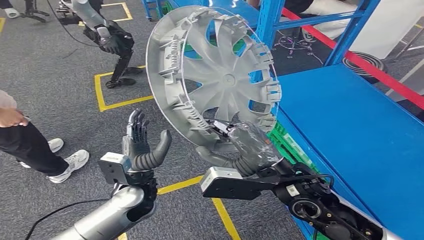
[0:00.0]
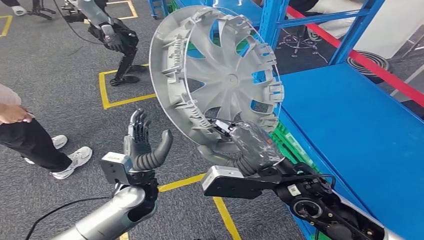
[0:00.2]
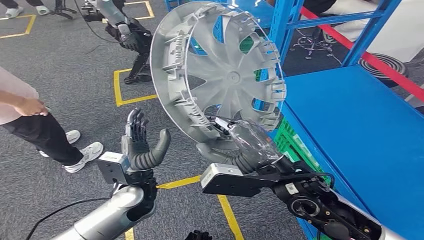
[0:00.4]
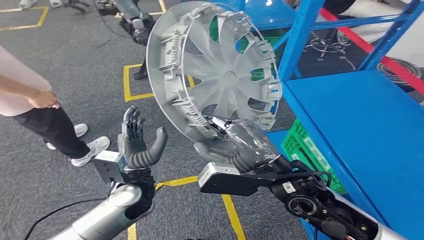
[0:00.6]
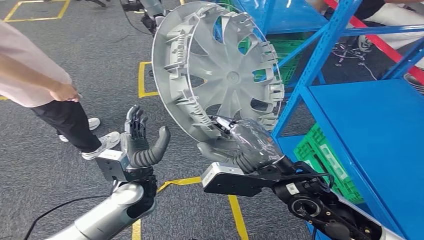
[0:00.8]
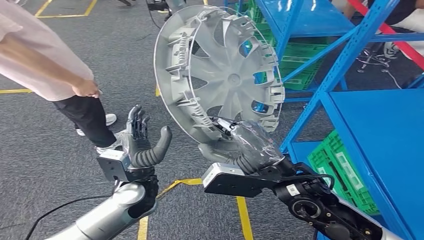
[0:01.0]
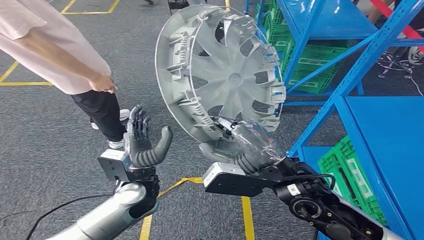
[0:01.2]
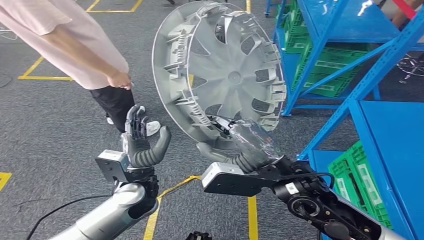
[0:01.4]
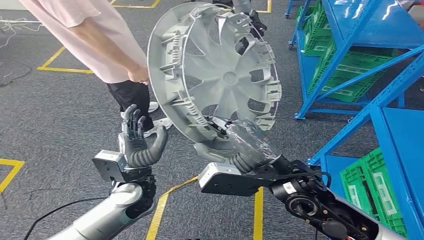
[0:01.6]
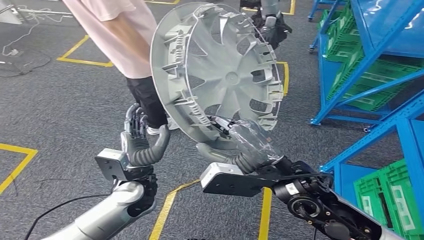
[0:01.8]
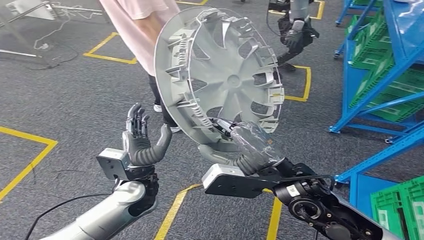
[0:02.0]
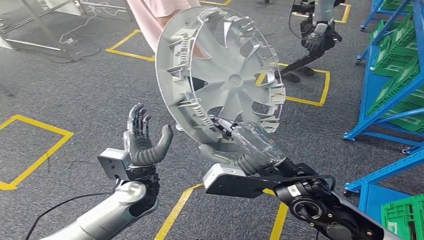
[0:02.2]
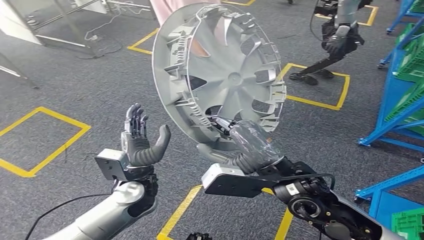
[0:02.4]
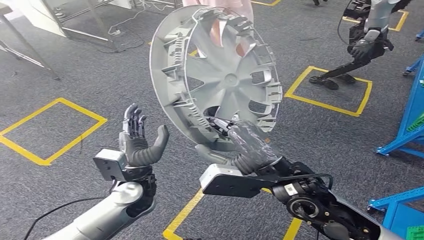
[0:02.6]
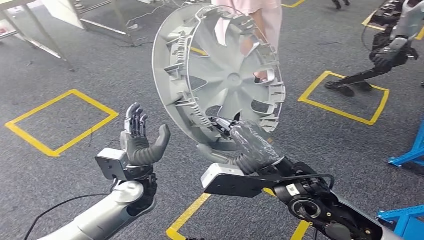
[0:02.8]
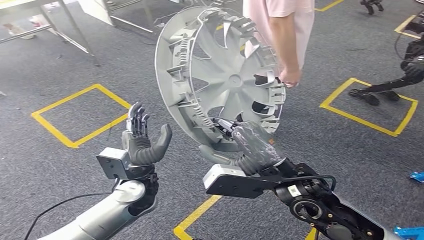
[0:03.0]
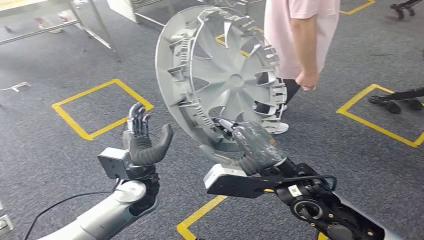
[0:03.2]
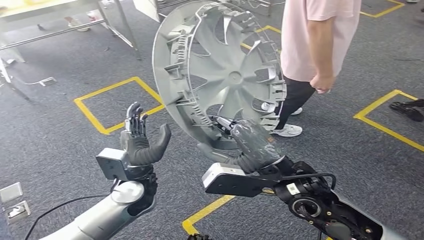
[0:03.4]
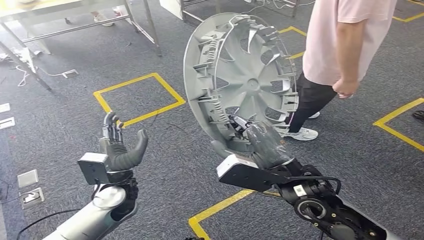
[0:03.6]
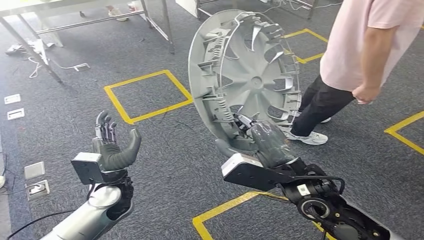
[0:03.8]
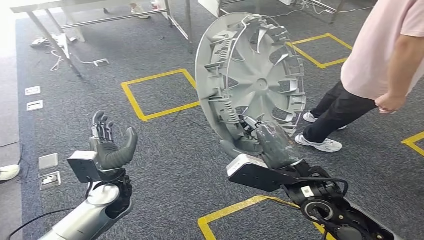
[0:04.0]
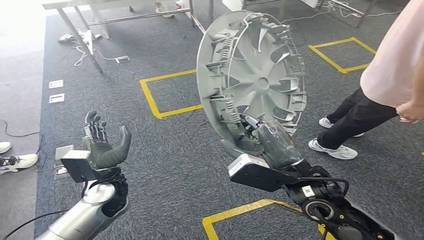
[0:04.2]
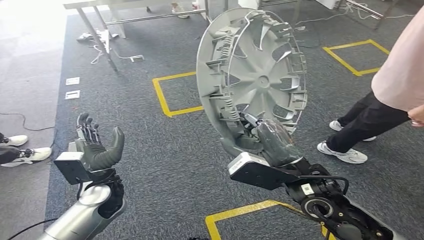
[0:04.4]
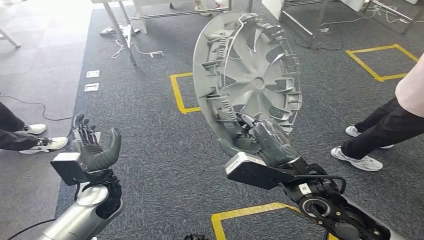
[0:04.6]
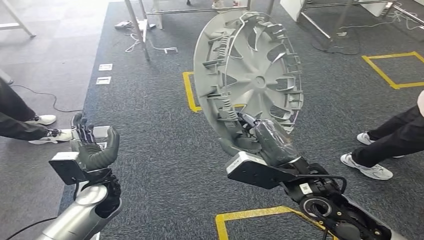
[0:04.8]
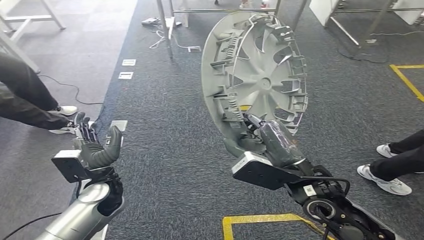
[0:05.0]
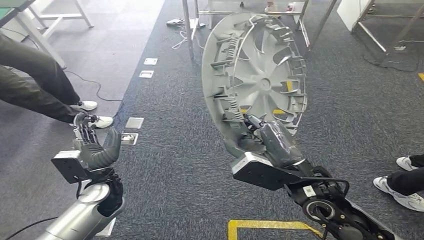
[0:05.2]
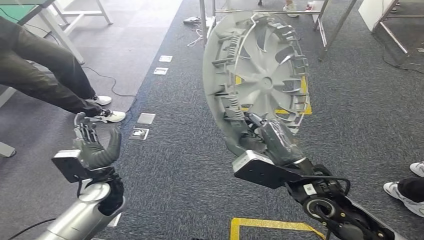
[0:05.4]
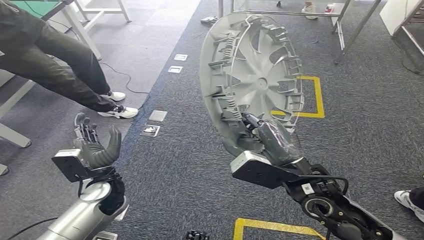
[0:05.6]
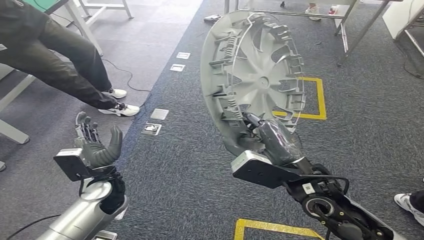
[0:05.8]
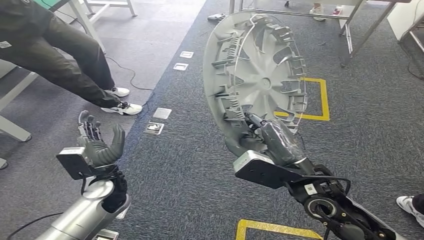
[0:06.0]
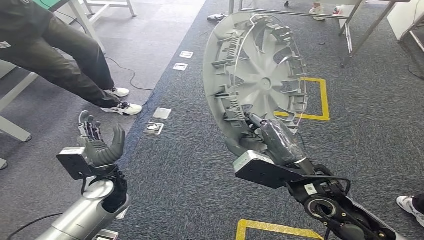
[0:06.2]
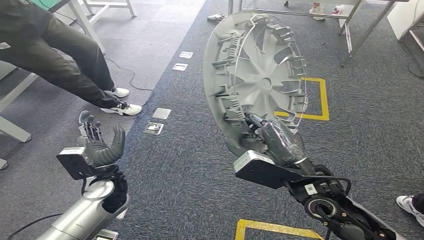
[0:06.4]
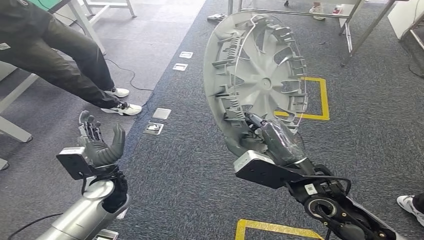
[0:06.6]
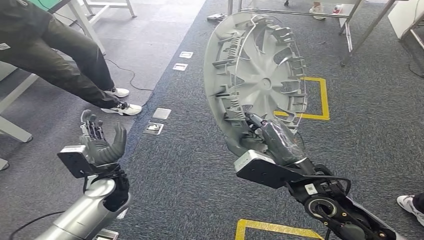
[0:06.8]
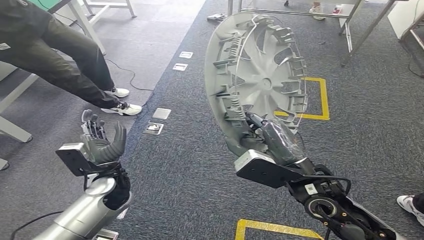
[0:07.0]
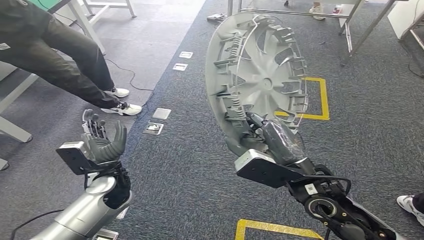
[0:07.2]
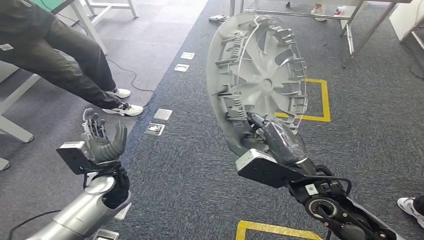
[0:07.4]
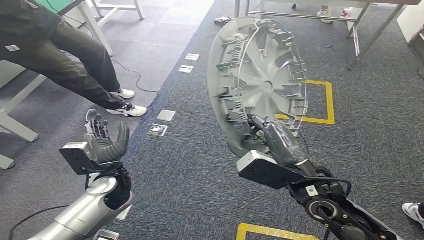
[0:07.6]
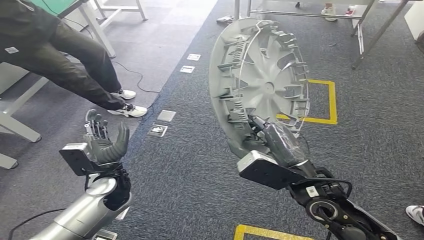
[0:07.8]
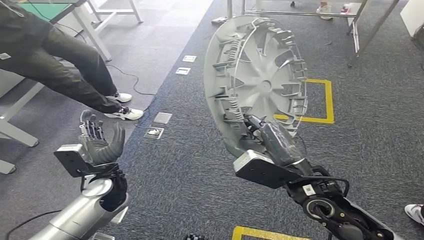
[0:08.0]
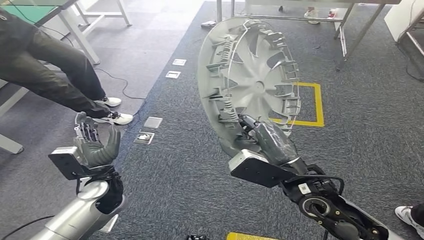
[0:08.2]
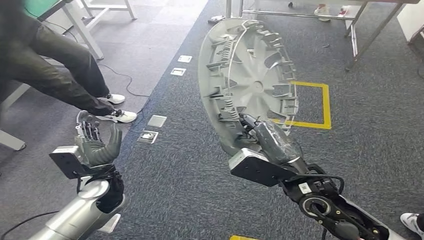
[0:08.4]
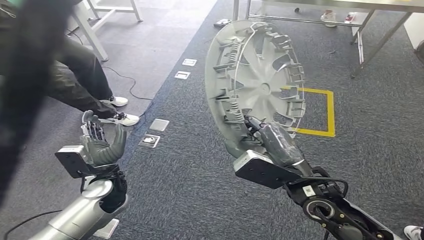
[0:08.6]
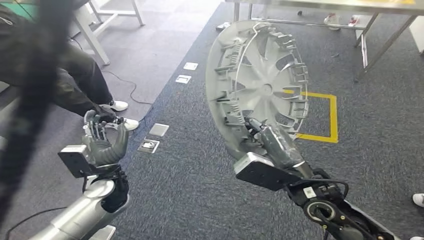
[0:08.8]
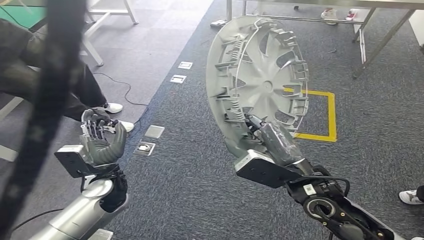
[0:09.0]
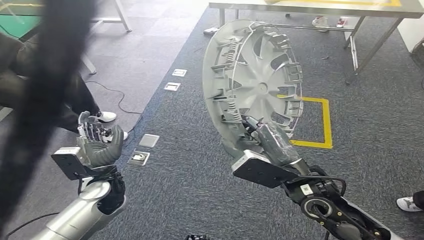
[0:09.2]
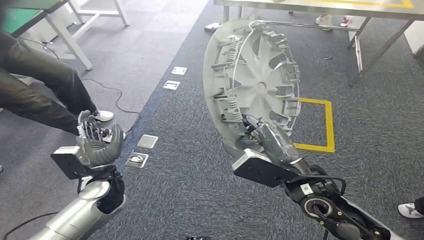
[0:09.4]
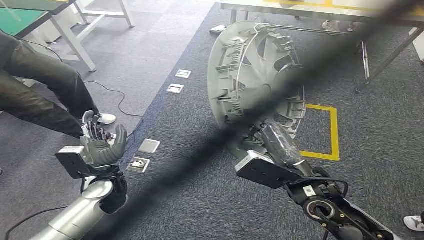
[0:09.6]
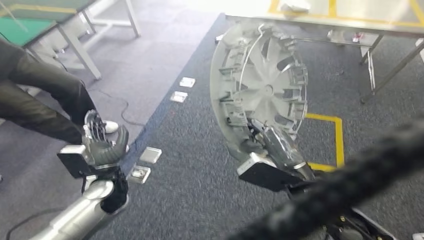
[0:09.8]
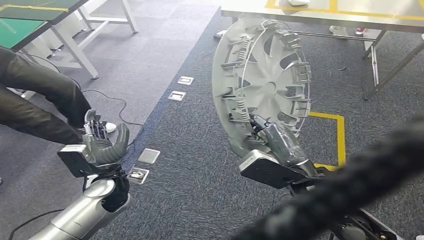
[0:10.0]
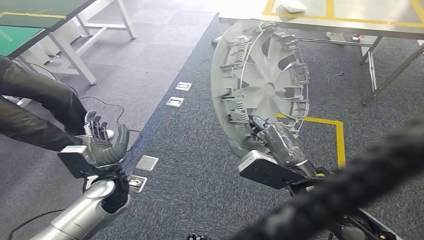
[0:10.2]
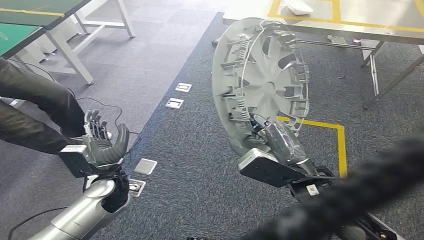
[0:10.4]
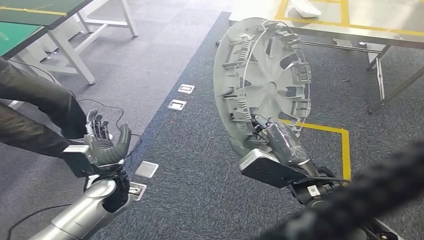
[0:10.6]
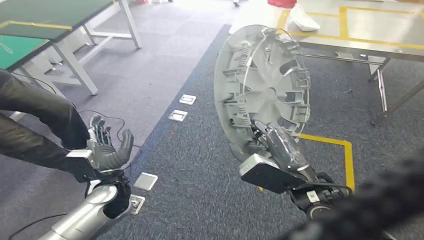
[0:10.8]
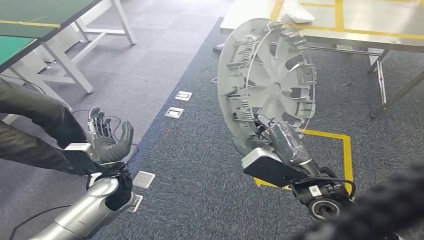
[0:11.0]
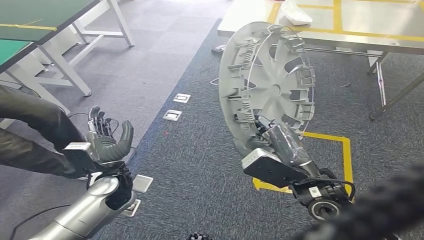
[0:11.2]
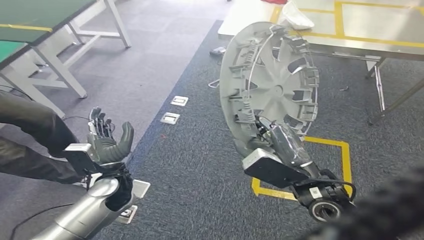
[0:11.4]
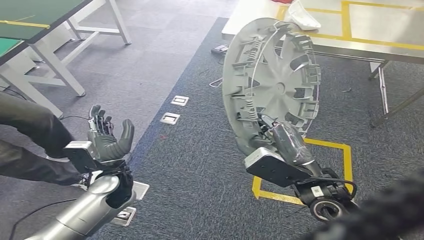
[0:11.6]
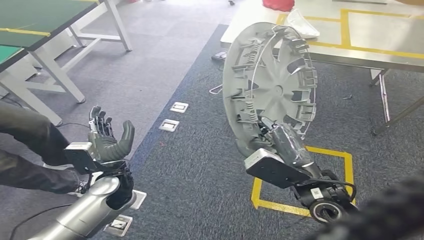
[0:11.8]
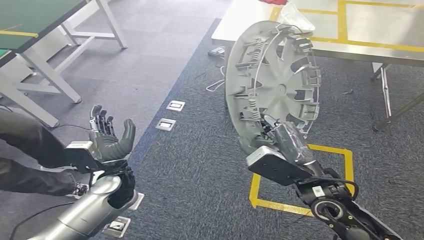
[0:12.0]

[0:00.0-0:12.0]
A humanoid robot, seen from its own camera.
0:06.0 to 0:07.6: The hands stay close to where they were, moving slightly.

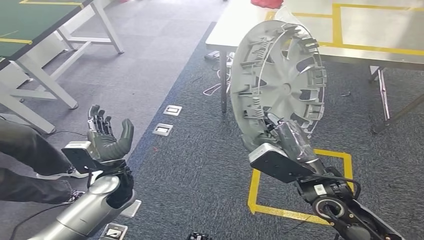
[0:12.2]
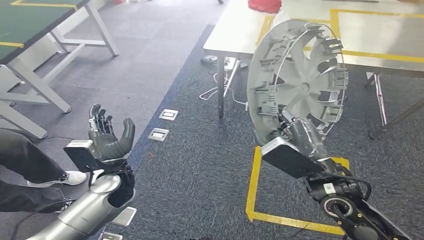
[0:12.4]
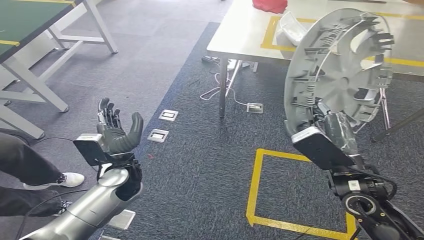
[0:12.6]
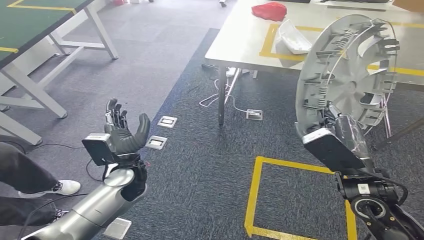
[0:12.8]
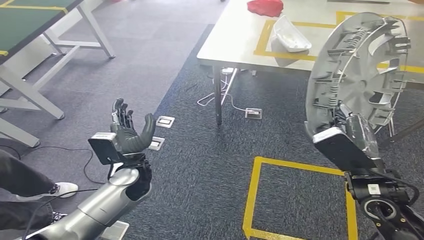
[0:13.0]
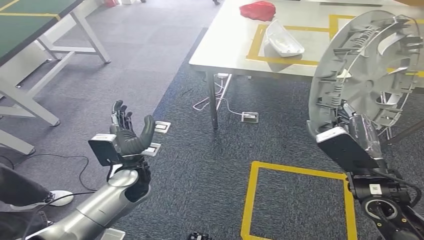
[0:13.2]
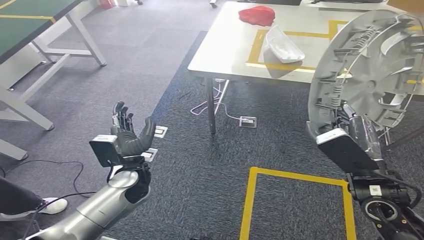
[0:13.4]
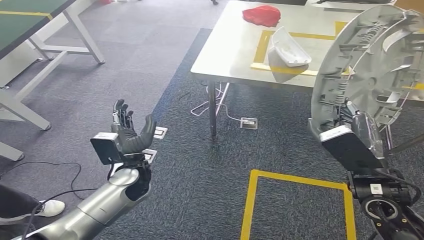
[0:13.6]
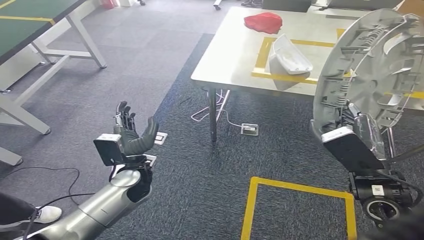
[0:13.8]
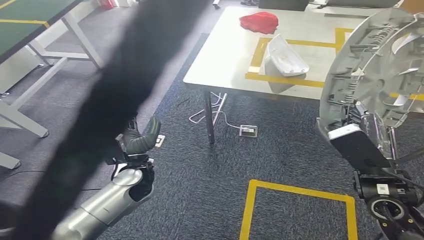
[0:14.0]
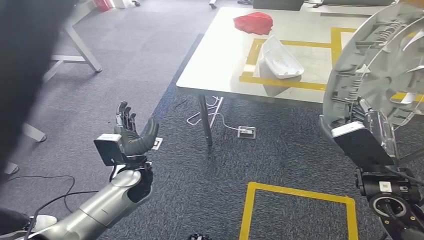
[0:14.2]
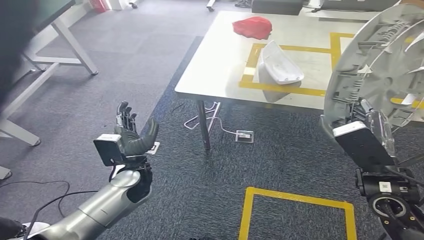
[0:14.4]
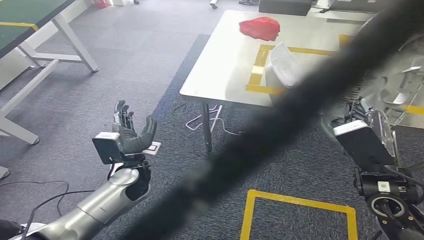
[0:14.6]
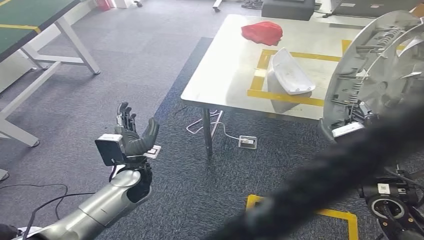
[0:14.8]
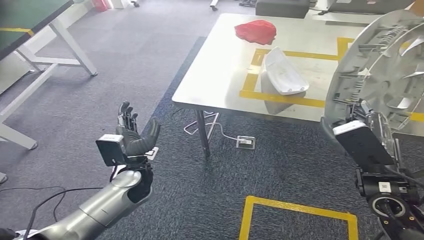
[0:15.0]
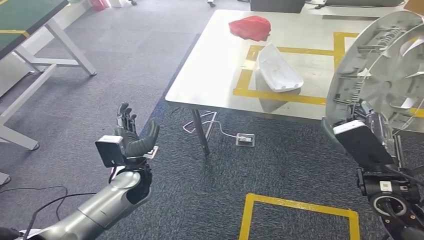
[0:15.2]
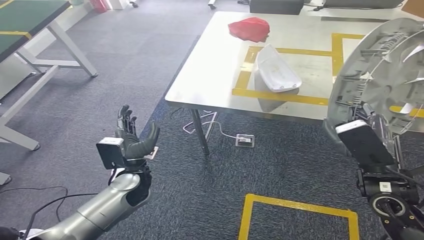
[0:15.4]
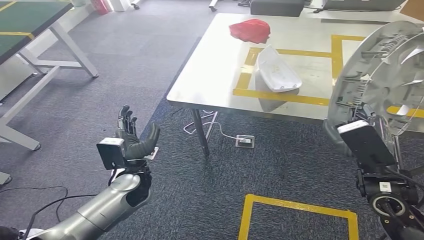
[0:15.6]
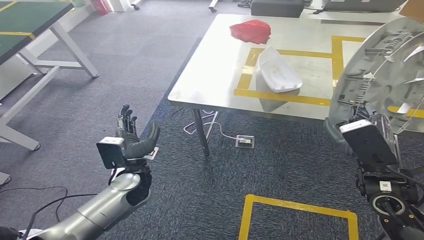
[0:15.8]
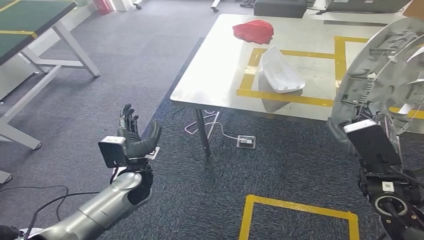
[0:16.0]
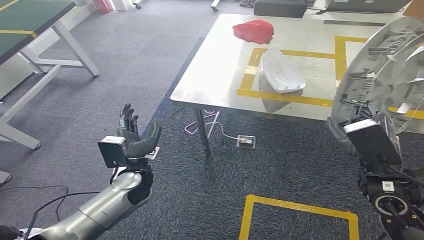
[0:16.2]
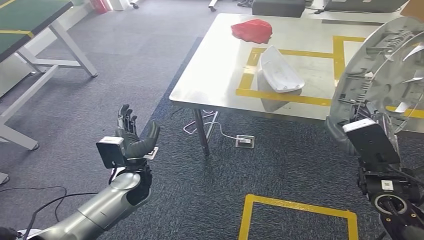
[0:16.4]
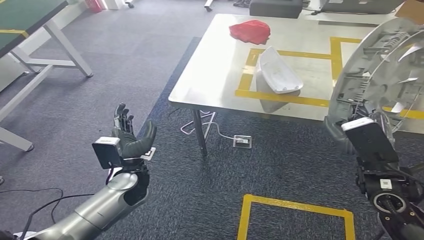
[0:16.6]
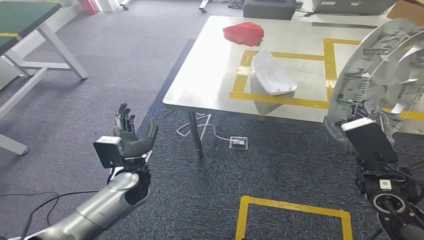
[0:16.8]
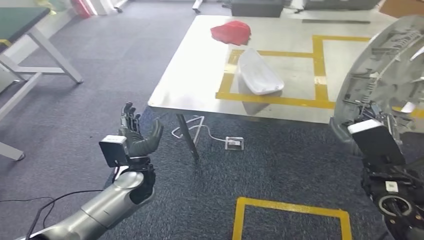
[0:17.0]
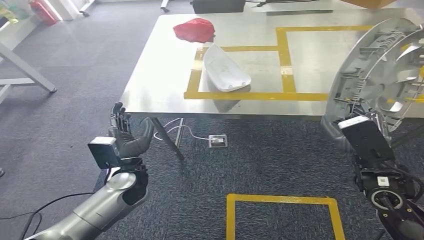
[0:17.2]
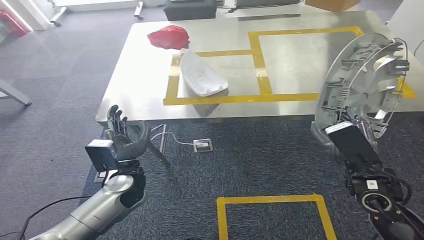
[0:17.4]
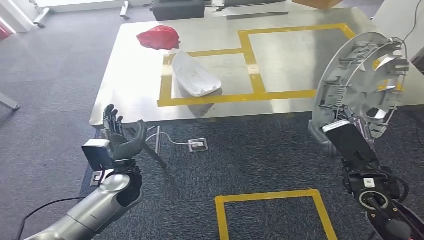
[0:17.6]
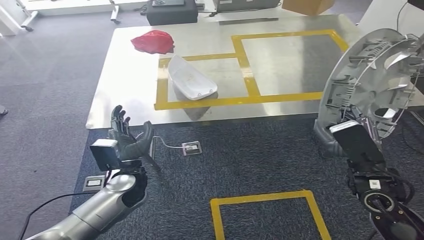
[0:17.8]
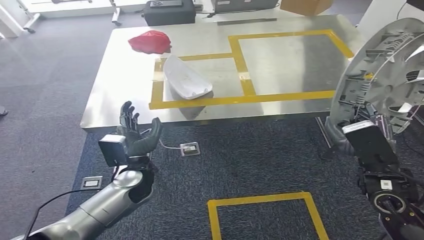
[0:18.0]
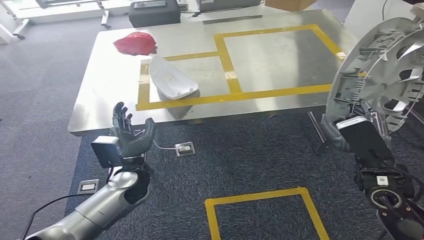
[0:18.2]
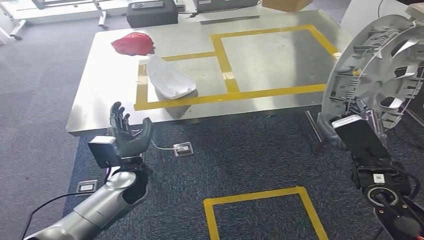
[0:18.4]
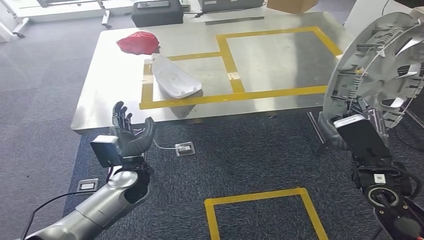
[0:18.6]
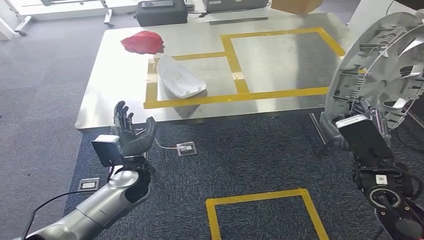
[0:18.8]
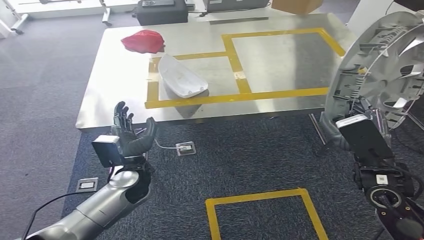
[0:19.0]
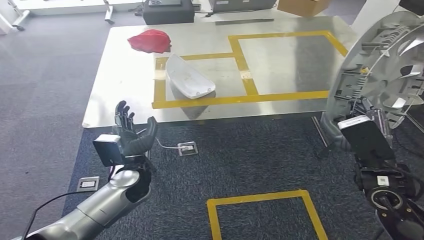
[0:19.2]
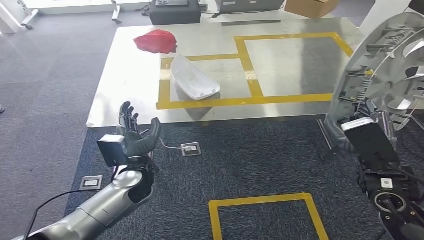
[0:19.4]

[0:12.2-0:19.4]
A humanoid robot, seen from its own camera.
Step, 0:12.2 to 0:17.0: Move the small parts to the workbench.
0:18.0 to 0:19.4: Neither hand changes place.
